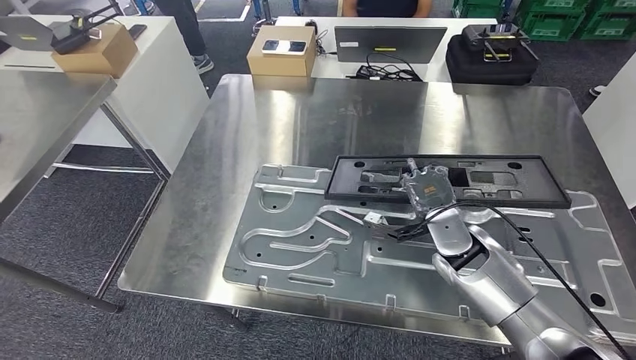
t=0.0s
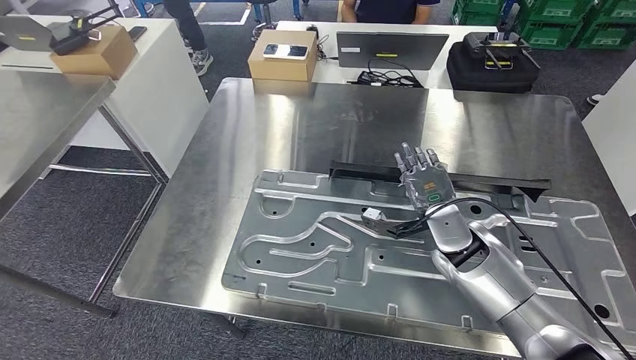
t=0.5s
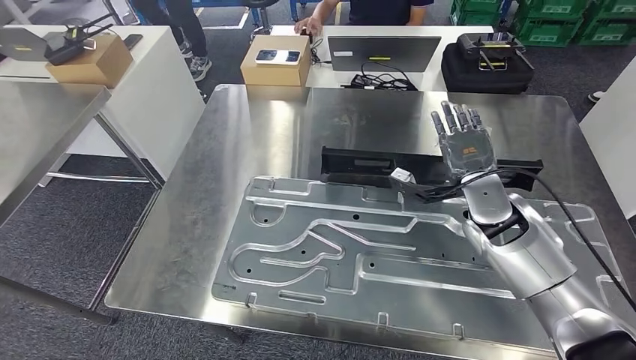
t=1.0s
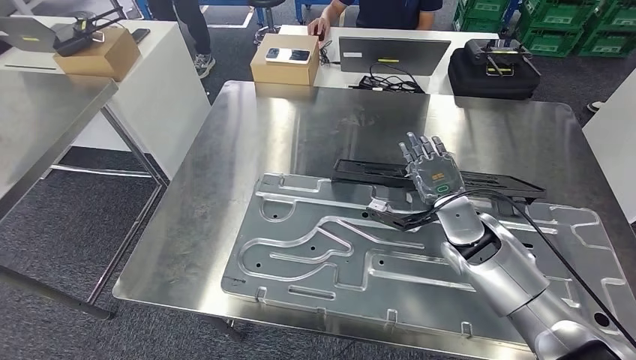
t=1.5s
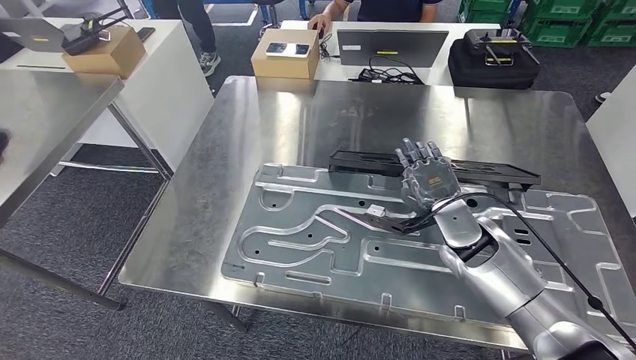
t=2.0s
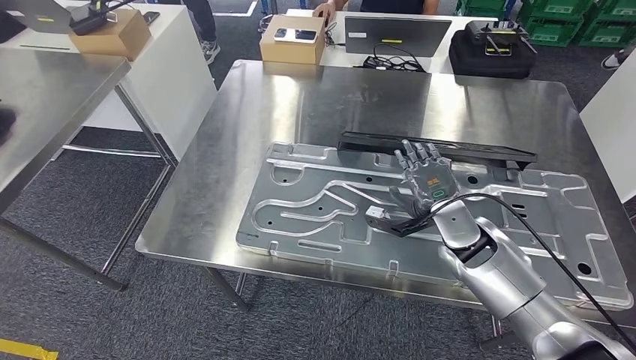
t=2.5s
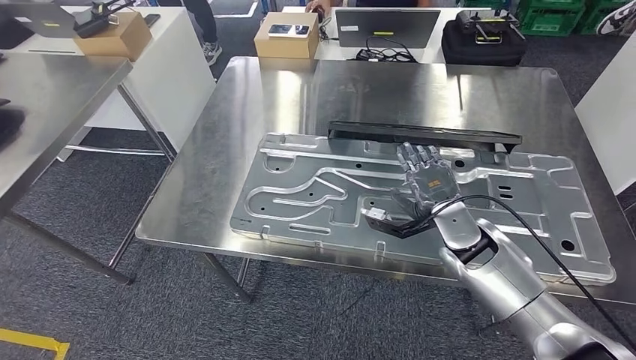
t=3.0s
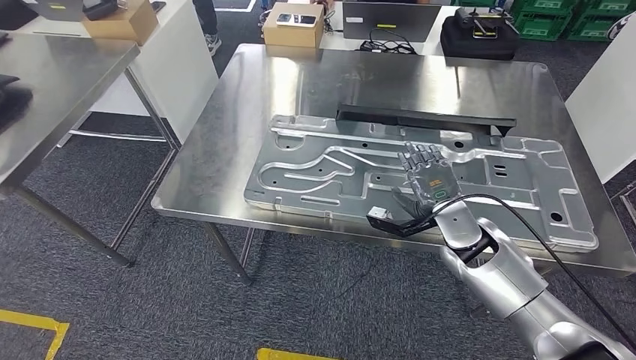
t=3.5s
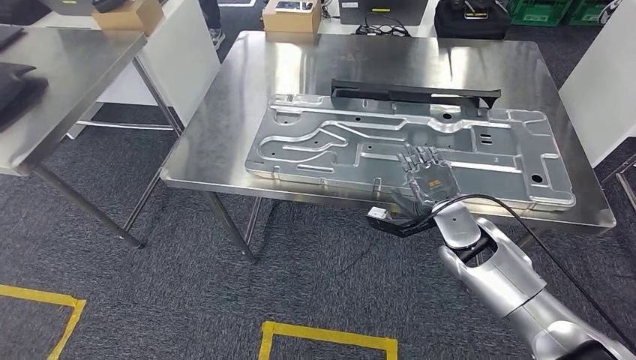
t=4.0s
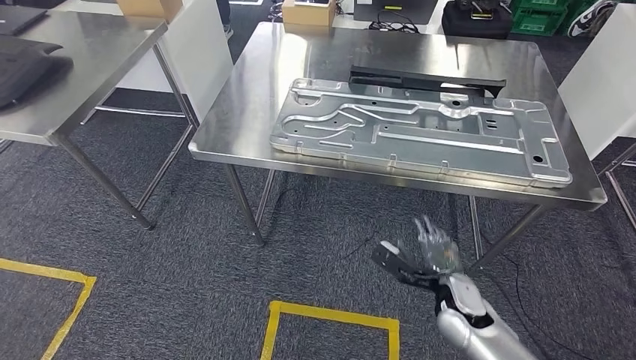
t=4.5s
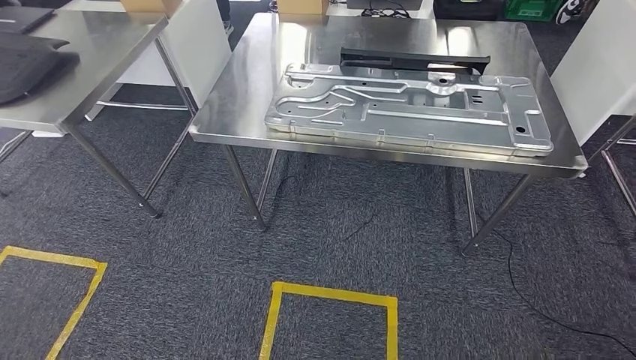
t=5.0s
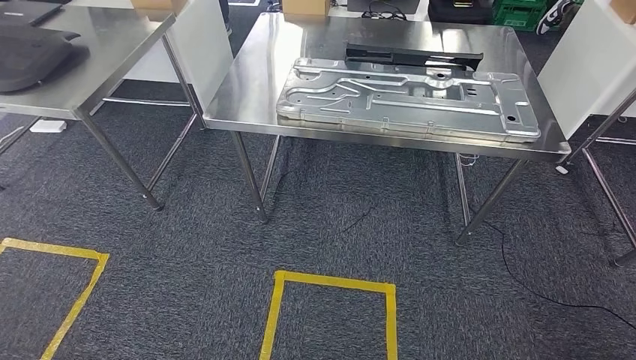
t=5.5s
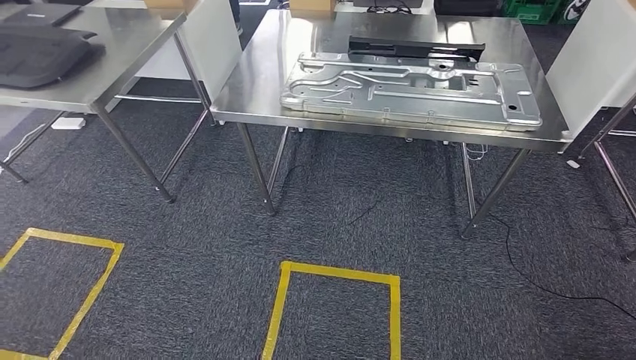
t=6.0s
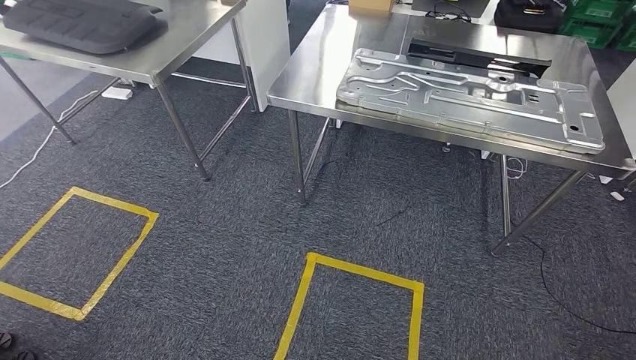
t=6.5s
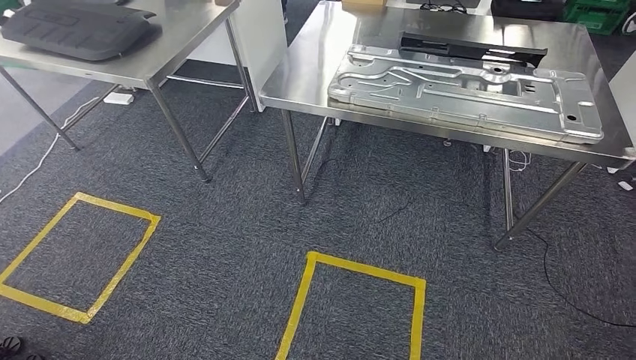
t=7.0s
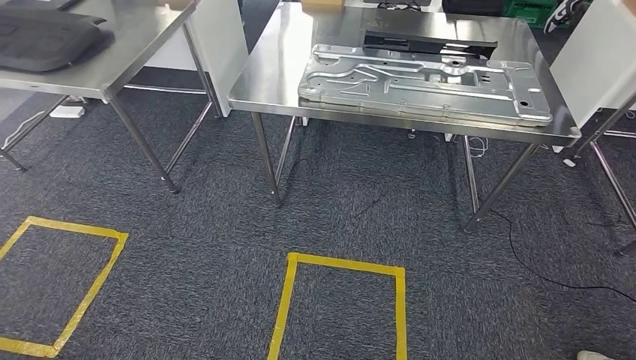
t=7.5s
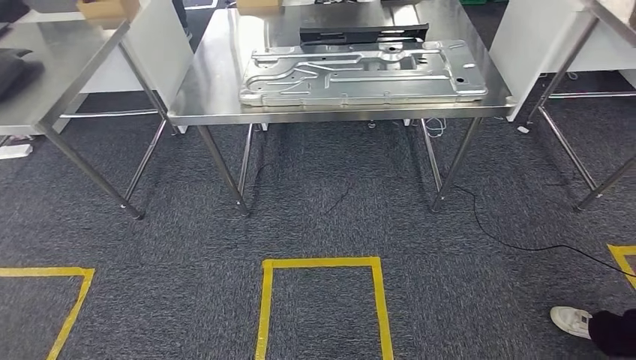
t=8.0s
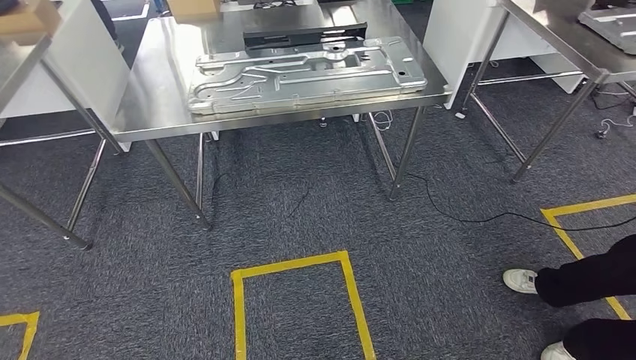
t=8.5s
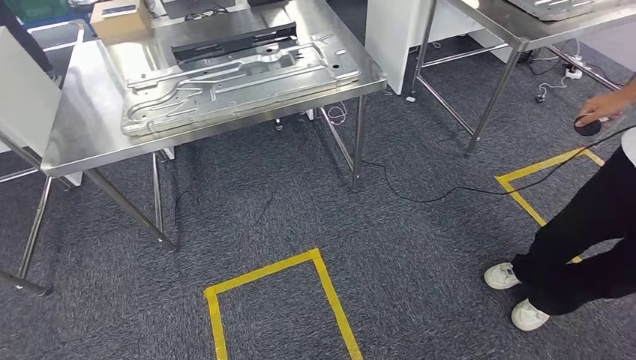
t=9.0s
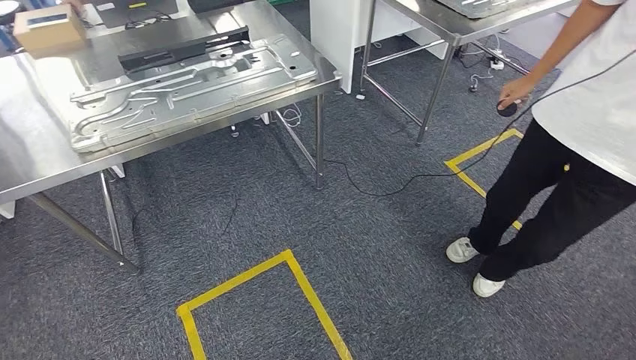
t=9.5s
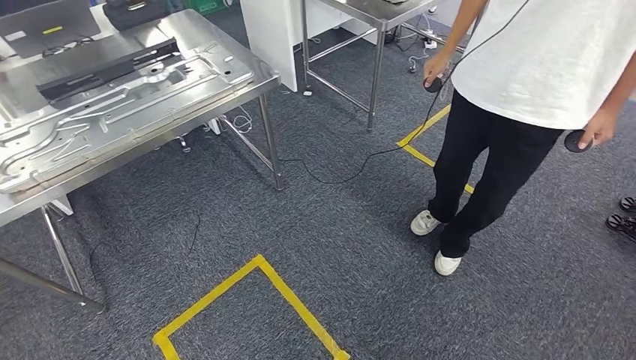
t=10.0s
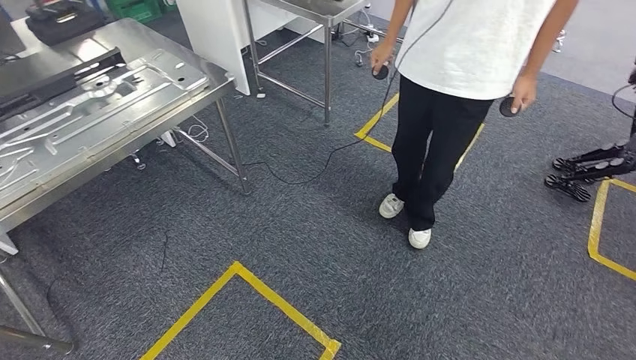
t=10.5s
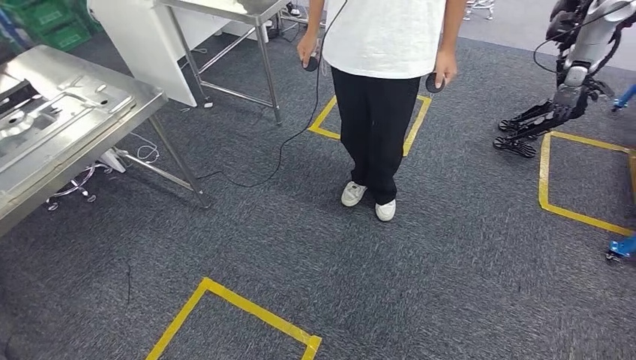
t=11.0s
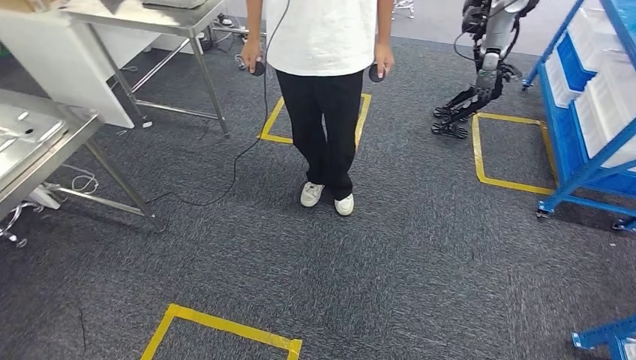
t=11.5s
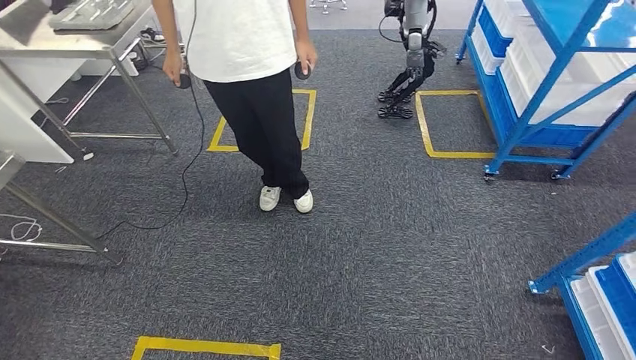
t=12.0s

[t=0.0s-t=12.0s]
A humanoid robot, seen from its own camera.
Step, t=0.0s to t=6.0s: Insert the large material into the corresponding slot on the workbench.

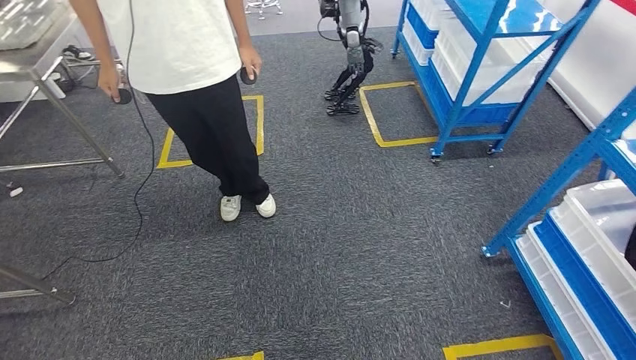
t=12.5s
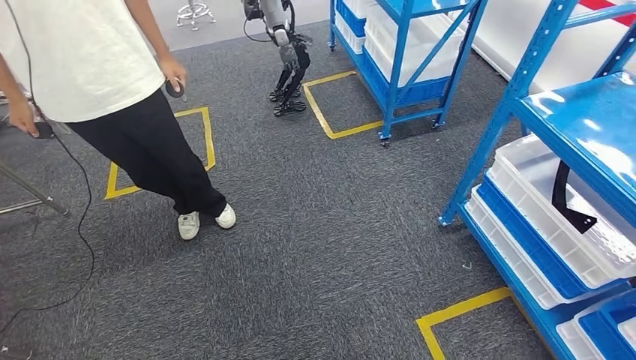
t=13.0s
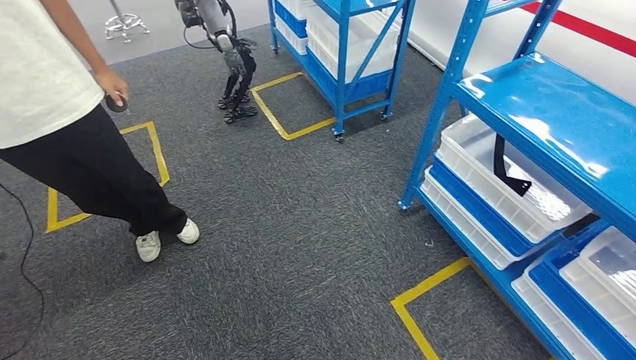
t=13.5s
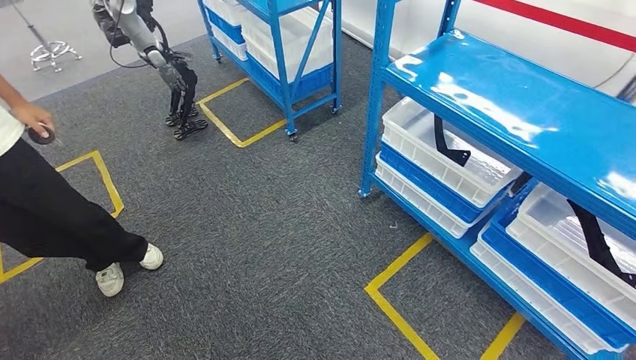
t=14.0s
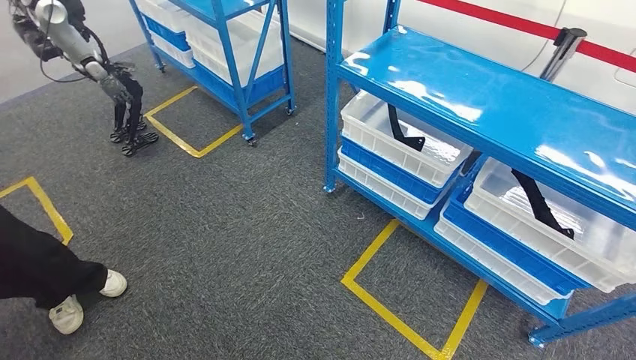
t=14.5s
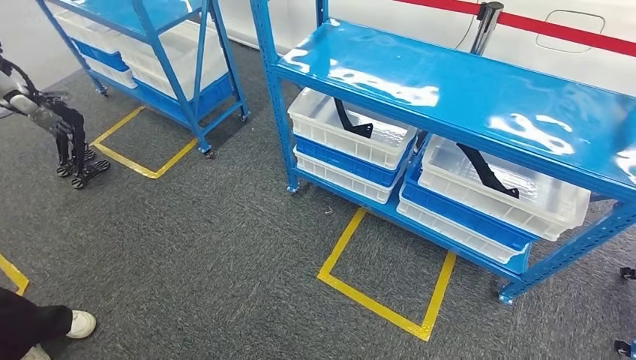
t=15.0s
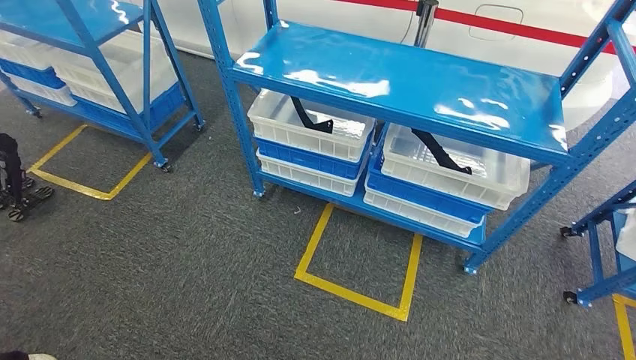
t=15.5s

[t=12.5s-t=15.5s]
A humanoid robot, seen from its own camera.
Step, t=12.5s to t=15.5s: Move to the initial position of the shelf.
